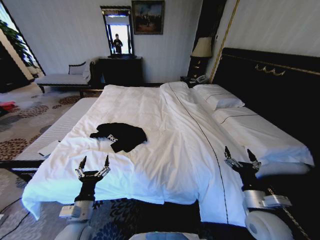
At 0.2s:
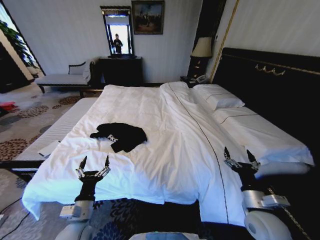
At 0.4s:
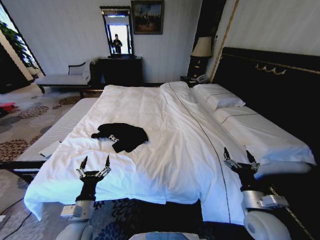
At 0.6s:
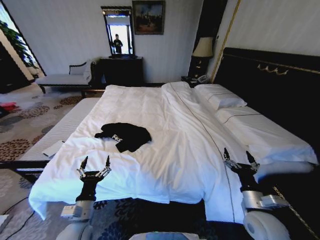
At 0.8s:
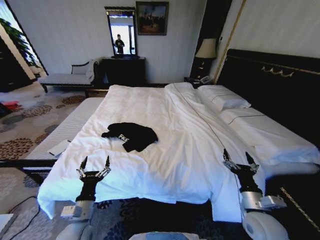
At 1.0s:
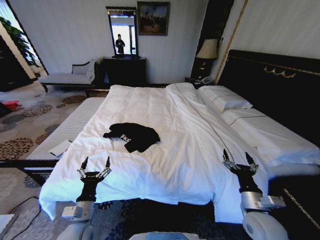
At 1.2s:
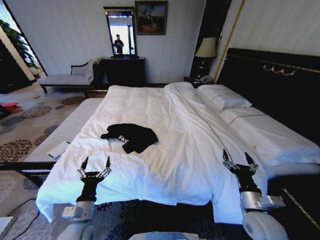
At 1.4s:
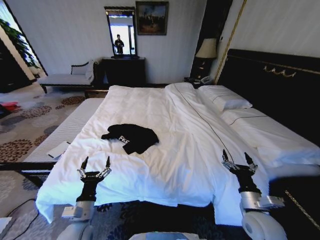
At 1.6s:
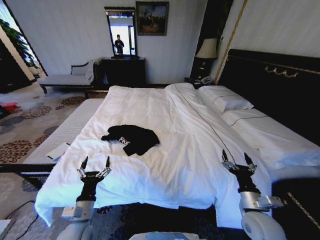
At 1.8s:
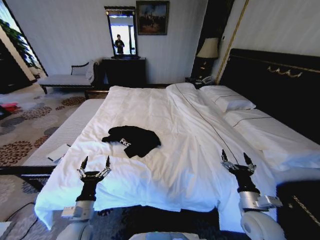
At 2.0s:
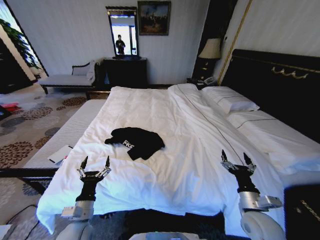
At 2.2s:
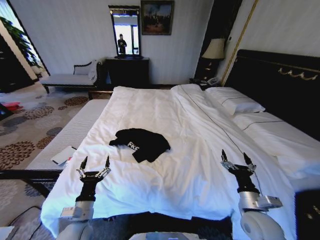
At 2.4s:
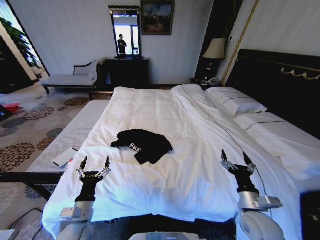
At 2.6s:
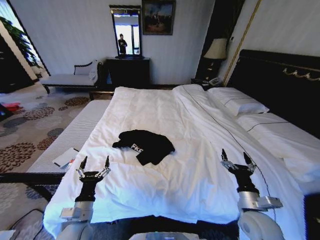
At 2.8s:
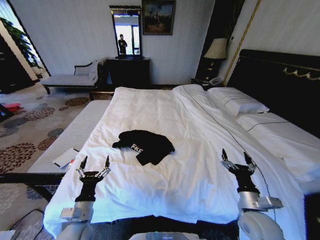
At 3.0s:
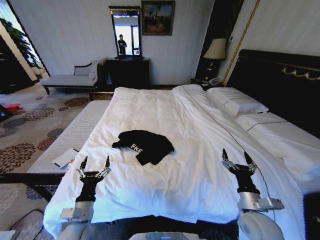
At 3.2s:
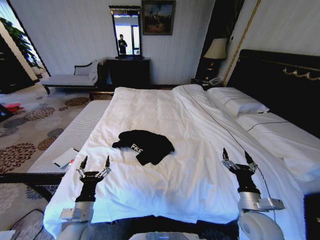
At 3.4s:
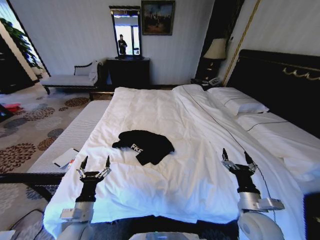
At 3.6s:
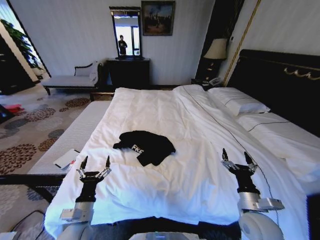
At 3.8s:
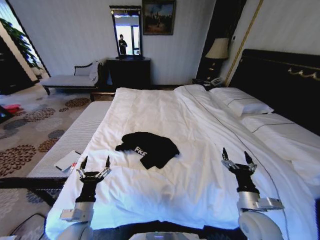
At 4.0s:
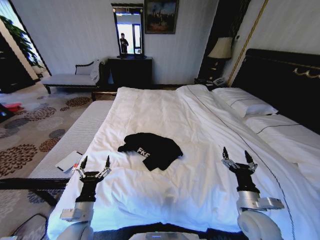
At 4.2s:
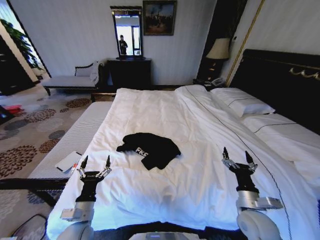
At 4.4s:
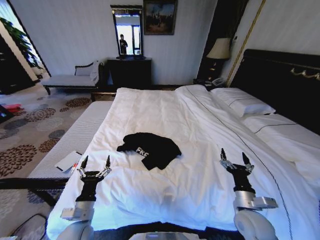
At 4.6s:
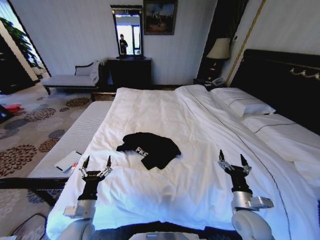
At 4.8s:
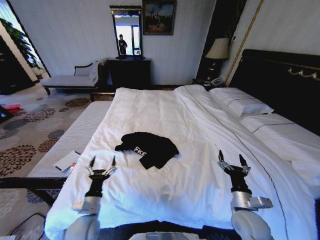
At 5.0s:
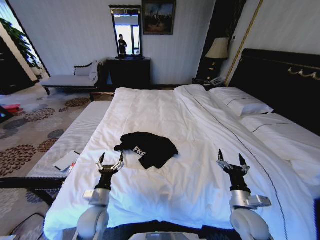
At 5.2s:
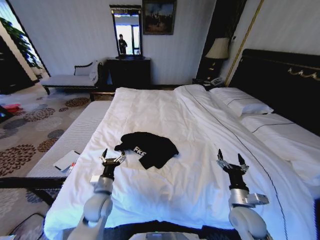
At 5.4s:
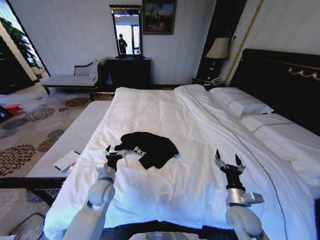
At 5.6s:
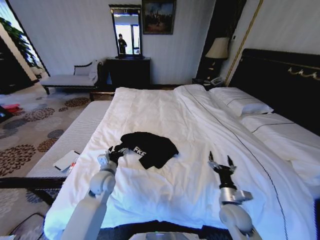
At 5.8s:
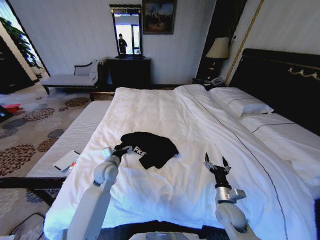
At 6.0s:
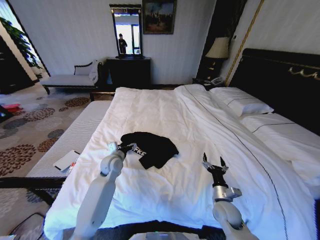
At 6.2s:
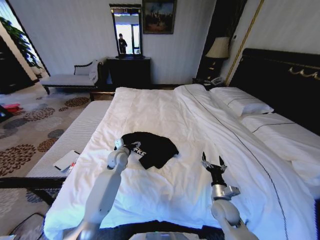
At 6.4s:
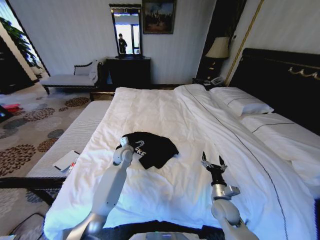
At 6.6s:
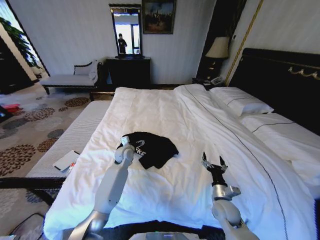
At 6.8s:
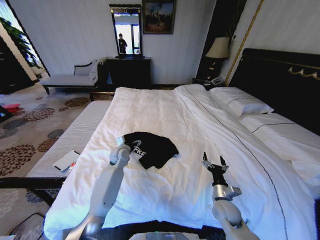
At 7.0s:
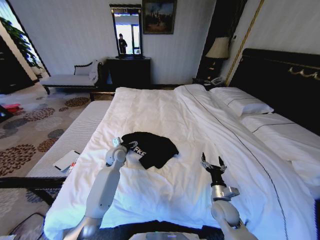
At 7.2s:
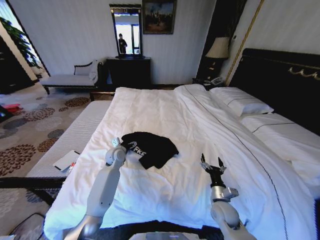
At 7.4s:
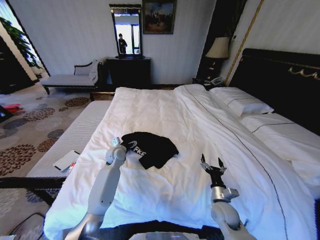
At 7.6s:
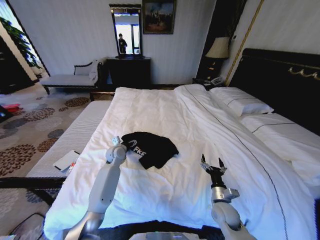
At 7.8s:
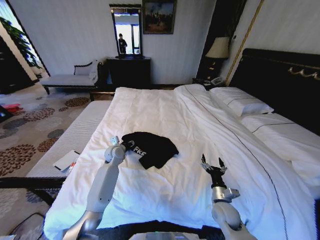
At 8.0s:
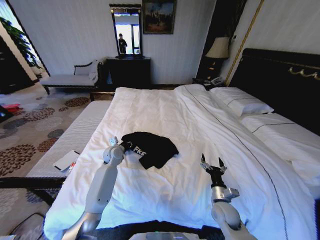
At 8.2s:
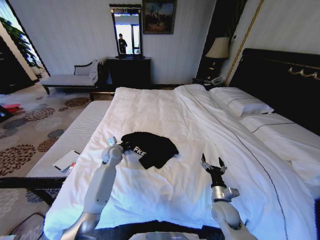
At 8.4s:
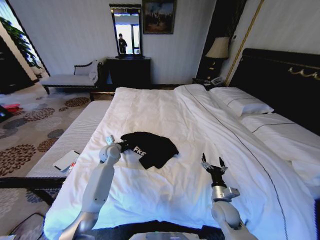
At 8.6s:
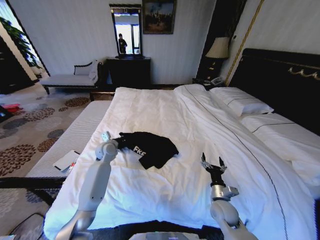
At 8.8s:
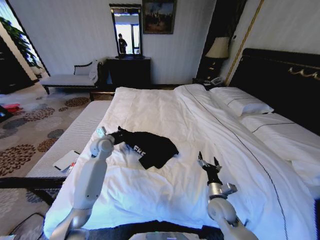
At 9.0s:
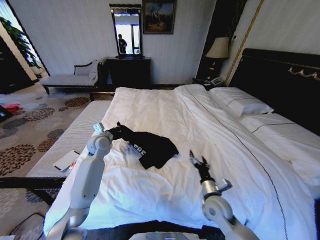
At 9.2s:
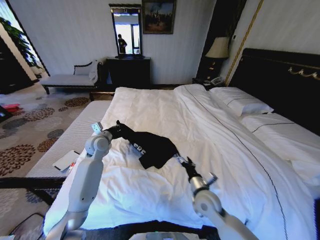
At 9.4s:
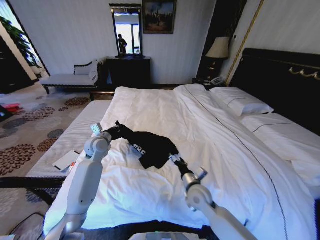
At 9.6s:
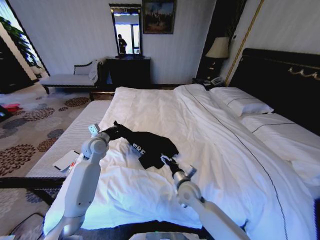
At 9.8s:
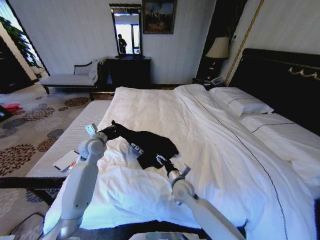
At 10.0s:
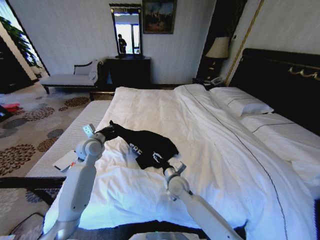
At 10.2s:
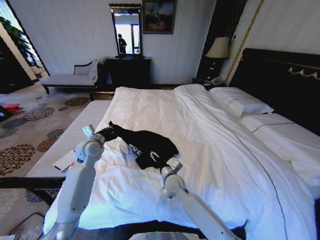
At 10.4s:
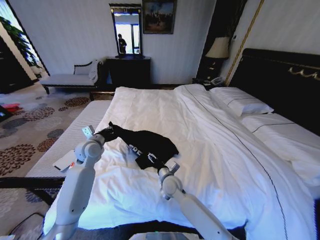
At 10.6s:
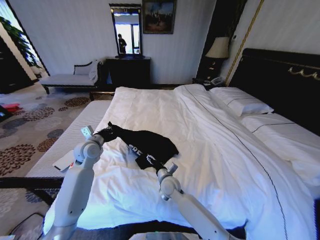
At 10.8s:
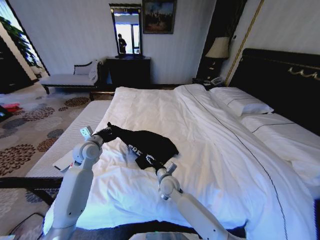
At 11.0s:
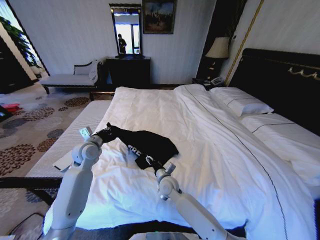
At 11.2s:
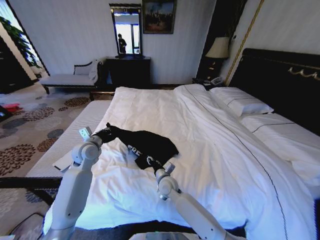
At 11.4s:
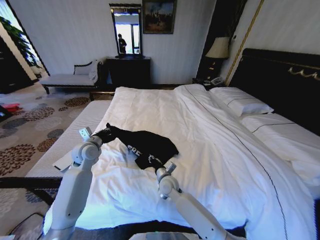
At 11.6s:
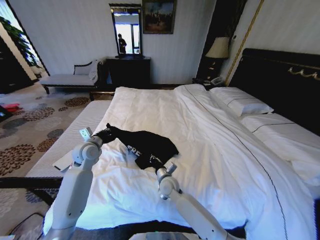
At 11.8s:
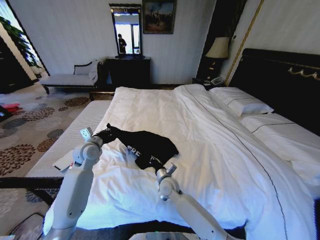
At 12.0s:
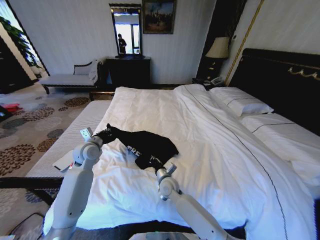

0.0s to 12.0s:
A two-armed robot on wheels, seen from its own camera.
Task of the whole recording: Fold the clothes on the bed.
4.4s to 6.0s: The left gripper shifts approximately 25 cm forward; the right gripper moves downward, roughly 10 cm.
6.0s to 7.6s: The left gripper shifts approximately 5 cm forward.
7.6s to 9.0s: The grippers both shift upward and to the left by approximately 10 cm. The left gripper closes.
9.0s to 10.4s: The left gripper ends up roughly 5 cm from where it was, while the right gripper goes roughly 20 cm to the left and forward.
10.4s to 12.0s: The right gripper closes up.

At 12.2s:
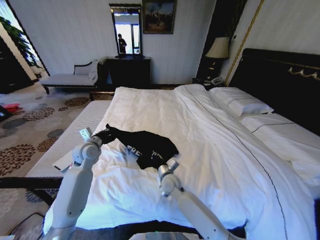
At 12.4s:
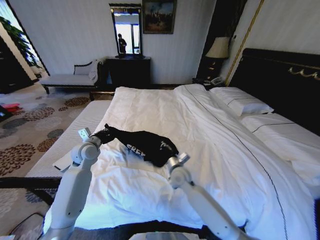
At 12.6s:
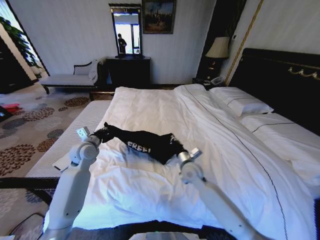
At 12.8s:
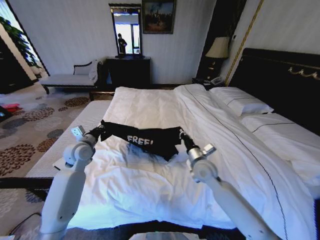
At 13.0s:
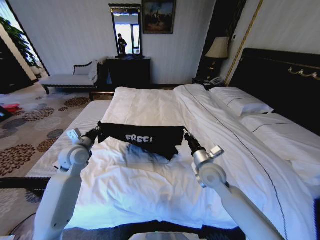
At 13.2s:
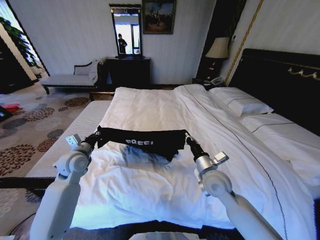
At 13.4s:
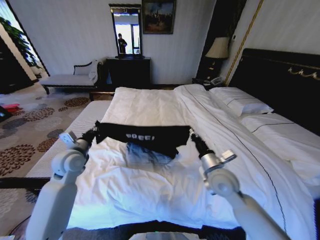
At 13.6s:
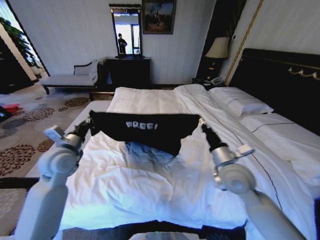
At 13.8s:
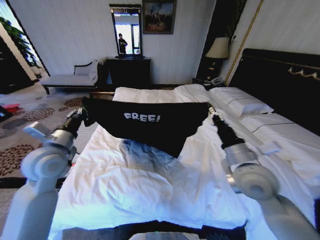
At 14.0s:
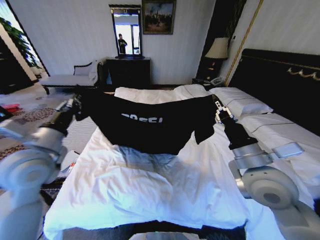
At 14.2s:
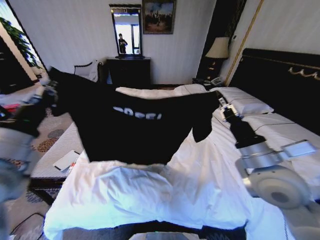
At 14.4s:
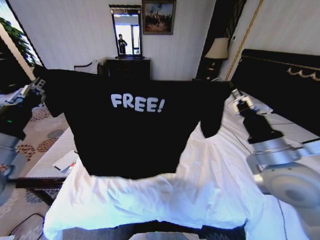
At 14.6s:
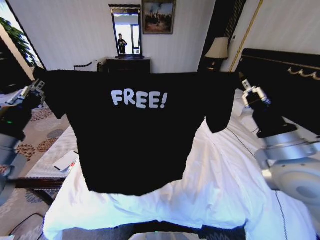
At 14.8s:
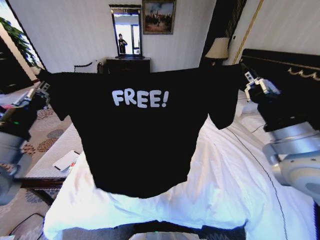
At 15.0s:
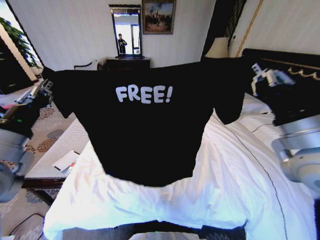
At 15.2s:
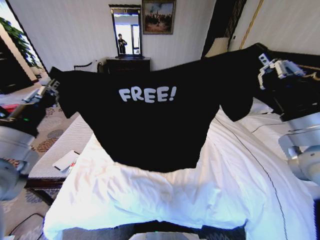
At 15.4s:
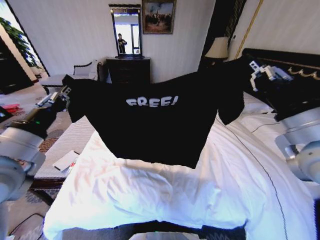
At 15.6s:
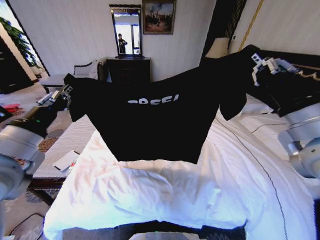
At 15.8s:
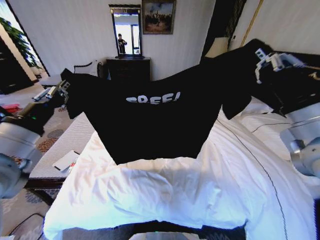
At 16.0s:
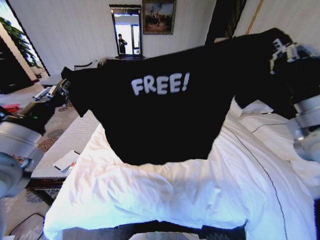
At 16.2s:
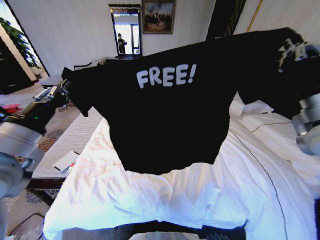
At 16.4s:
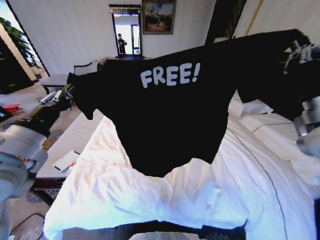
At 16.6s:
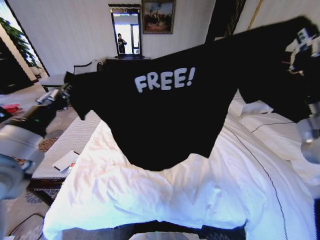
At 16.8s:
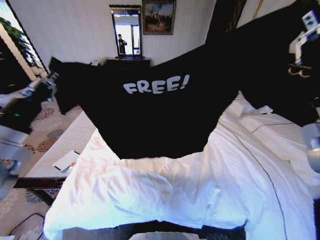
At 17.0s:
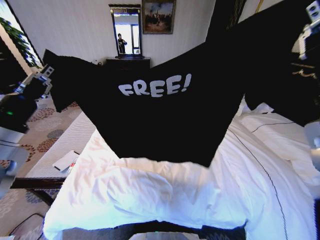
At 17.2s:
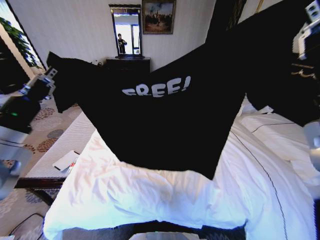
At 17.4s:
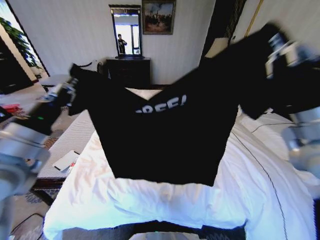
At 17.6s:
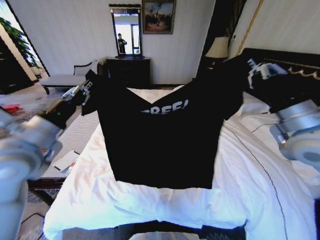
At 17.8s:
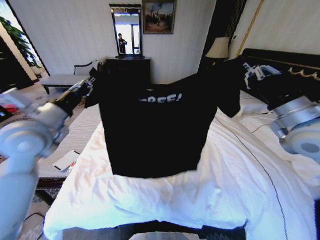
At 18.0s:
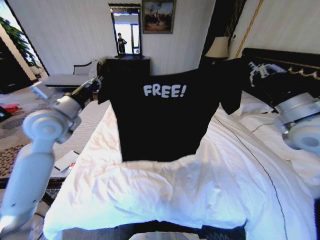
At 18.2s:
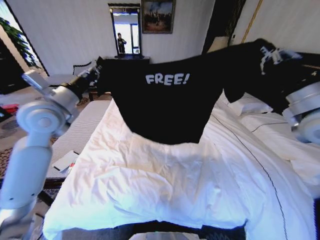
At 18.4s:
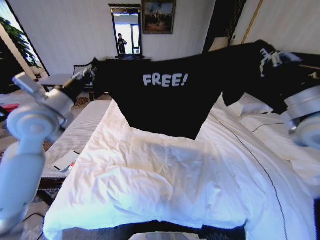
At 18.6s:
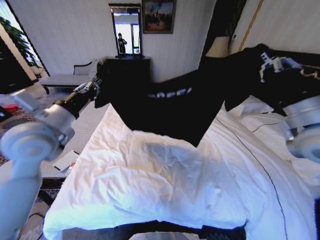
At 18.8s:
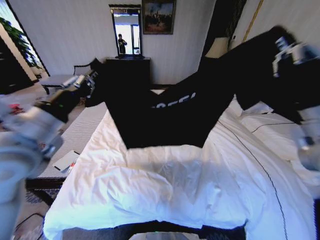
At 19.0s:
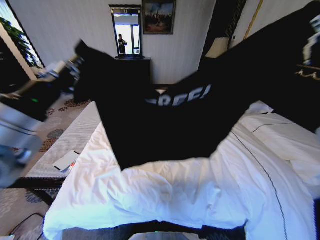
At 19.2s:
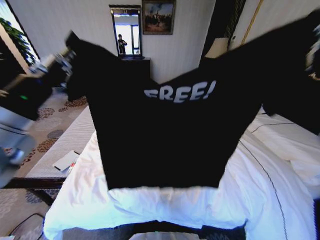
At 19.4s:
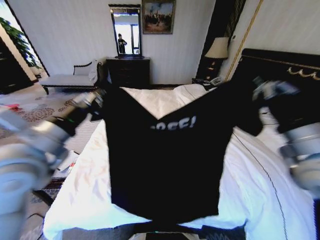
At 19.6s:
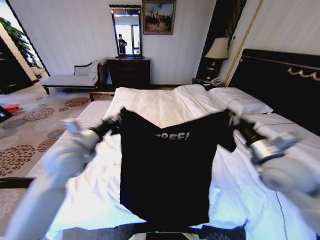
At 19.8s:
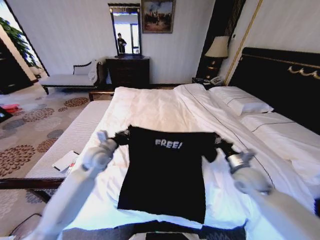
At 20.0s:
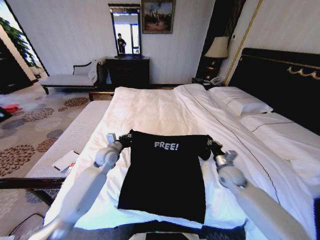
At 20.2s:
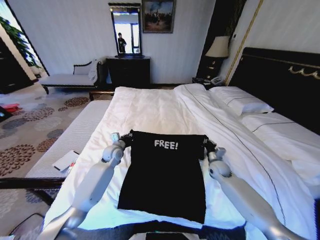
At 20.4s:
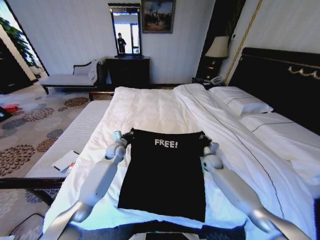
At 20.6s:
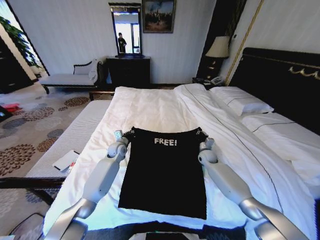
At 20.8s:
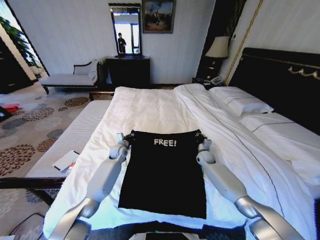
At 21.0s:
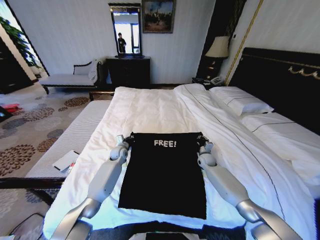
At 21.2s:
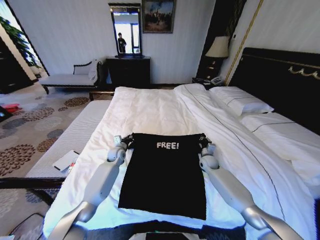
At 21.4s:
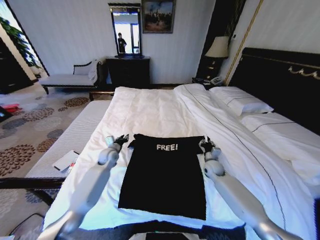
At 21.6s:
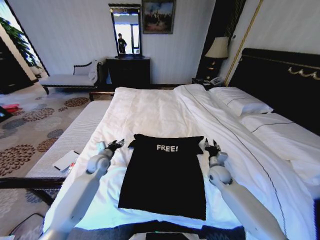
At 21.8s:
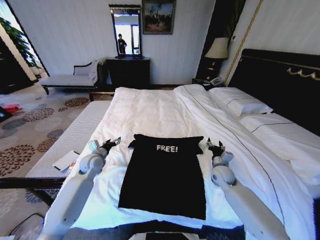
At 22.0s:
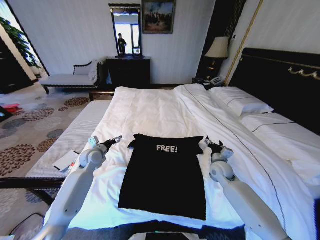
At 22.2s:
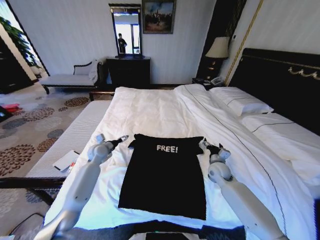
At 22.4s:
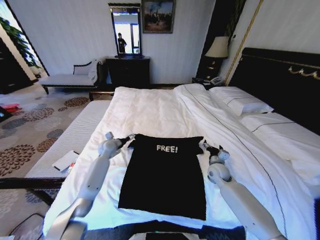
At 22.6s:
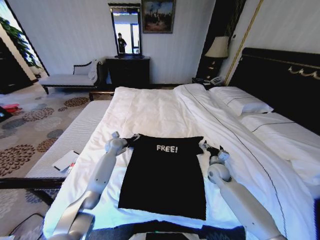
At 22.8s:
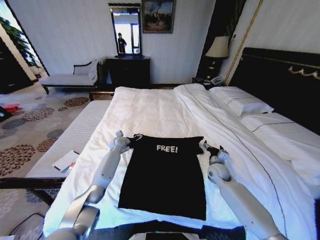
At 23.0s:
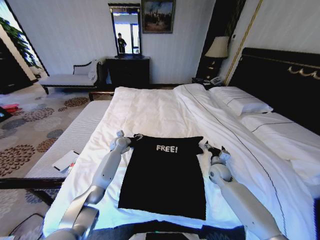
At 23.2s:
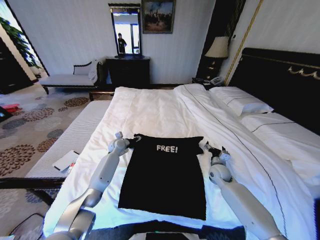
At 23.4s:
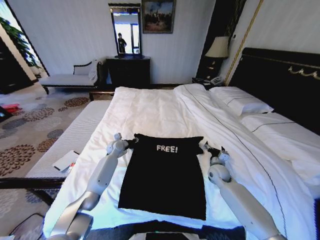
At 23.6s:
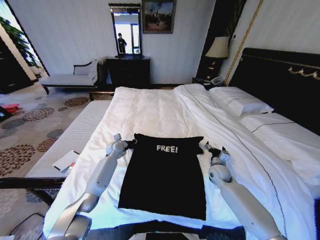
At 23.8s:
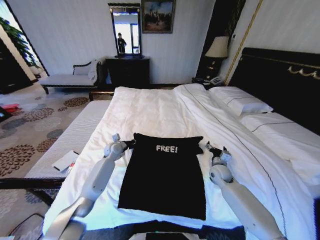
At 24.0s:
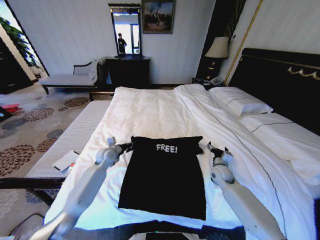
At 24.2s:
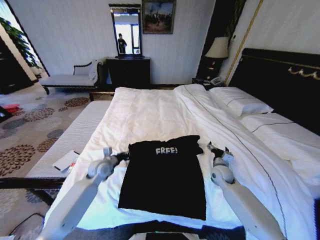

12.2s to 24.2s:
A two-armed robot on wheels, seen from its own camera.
Task of the whole recording: Fold the clothes on the bed.
12.2s to 13.8s: The left gripper shifts about 15 cm backward and upward; the right gripper shifts about 30 cm upward and to the right.
13.8s to 15.2s: The left gripper heads backward and upward, covering roughly 10 cm. Meanwhile the right gripper is displaced upward by approximately 15 cm.
16.6s to 18.2s: The left gripper is displaced forward by some 15 cm, while the right gripper moves forward, about 5 cm.
18.2s to 19.8s: The grippers both shift downward by some 25 cm.
19.8s to 21.2s: The left gripper travels downward and forward by approximately 15 cm. Meanwhile the right gripper moves forward and downward, some 20 cm.
21.2s to 22.6s: The left gripper goes backward and returns, some 10 cm each way, and opens up, while the right gripper shifts roughly 10 cm backward, and opens its fingers.
22.6s to 24.2s: The left gripper goes some 15 cm backward, and closes its fingers.
